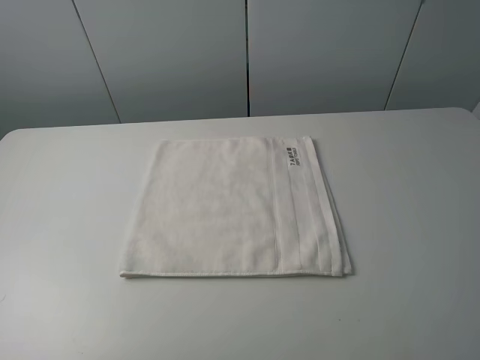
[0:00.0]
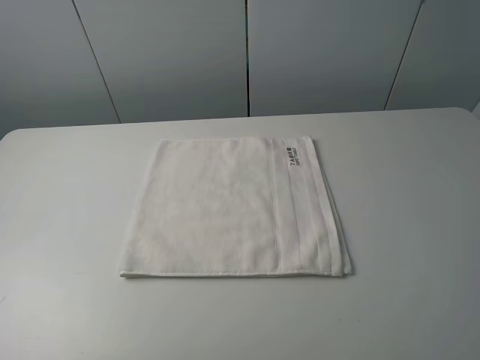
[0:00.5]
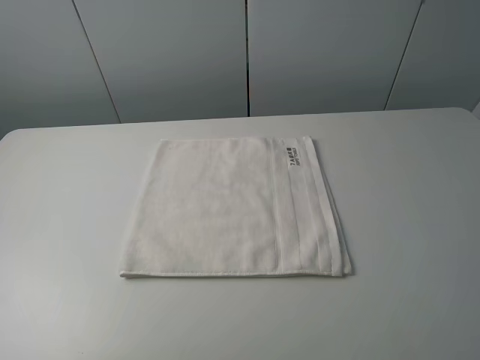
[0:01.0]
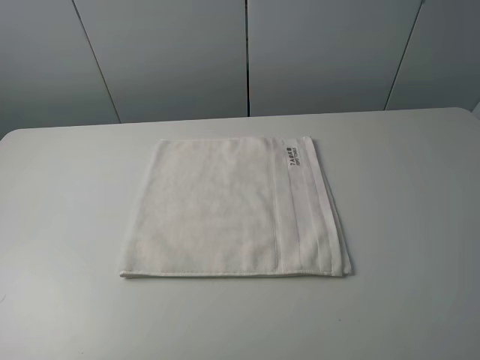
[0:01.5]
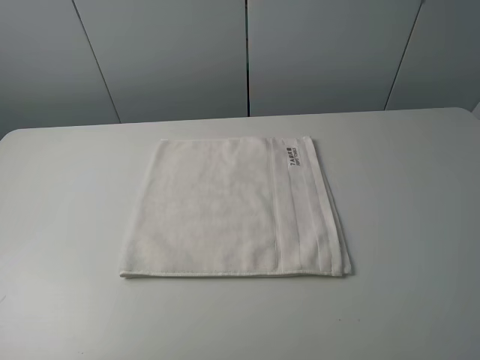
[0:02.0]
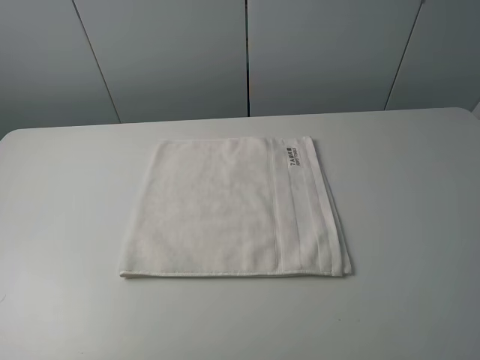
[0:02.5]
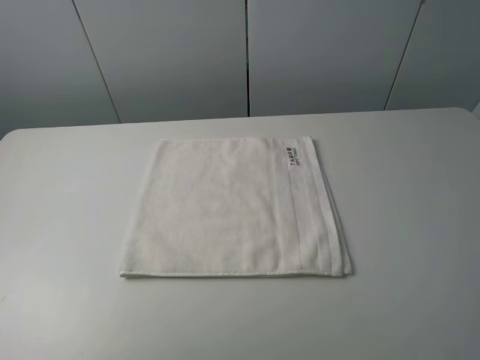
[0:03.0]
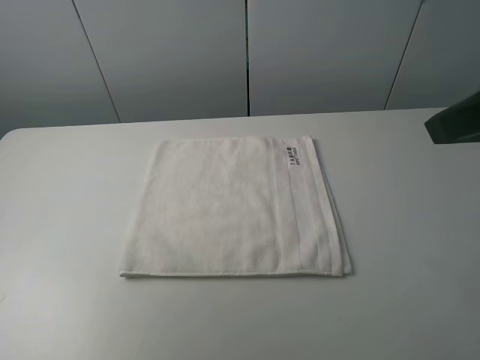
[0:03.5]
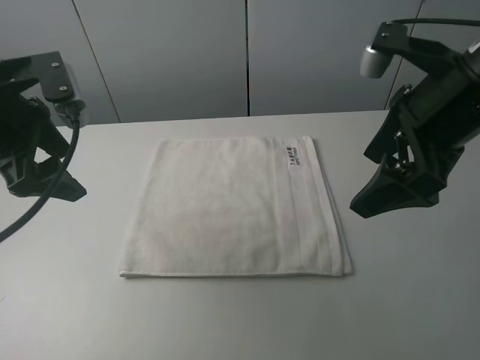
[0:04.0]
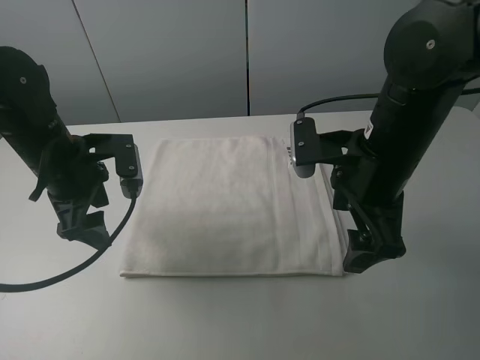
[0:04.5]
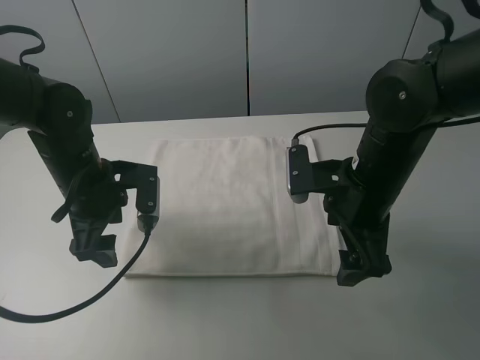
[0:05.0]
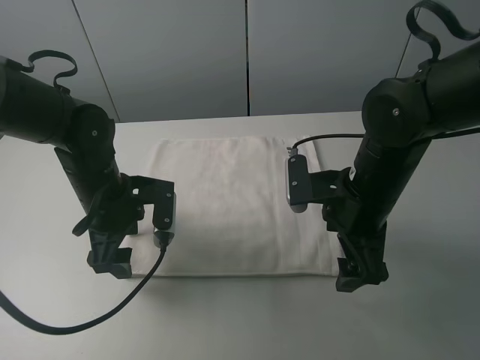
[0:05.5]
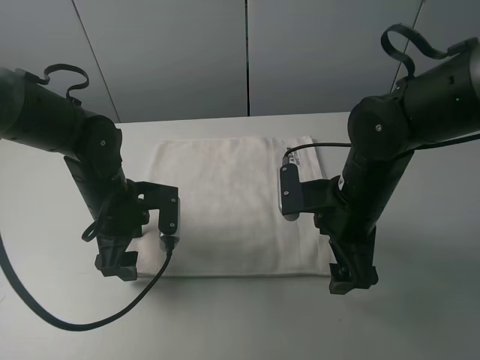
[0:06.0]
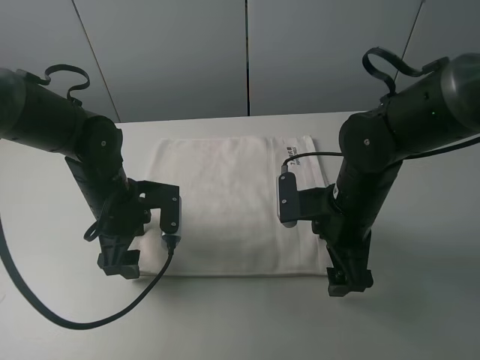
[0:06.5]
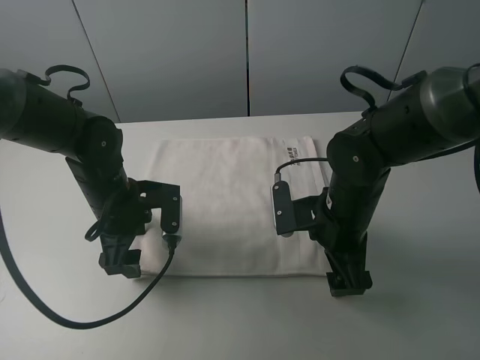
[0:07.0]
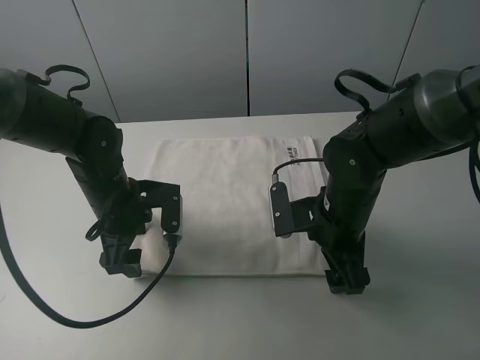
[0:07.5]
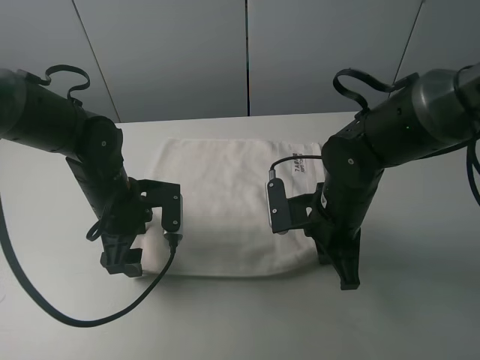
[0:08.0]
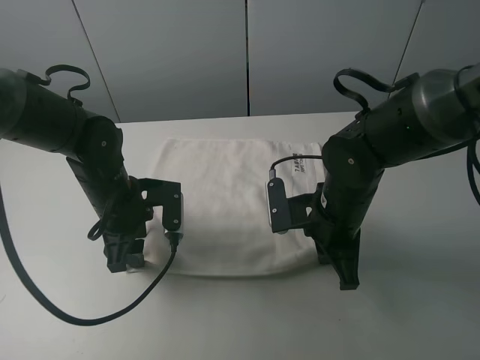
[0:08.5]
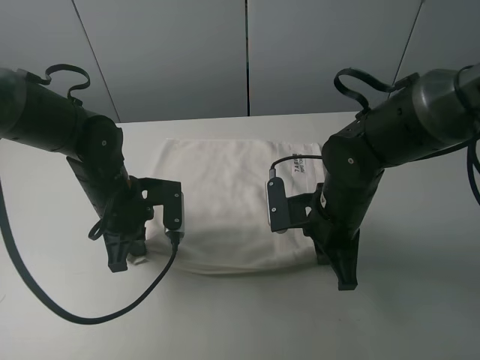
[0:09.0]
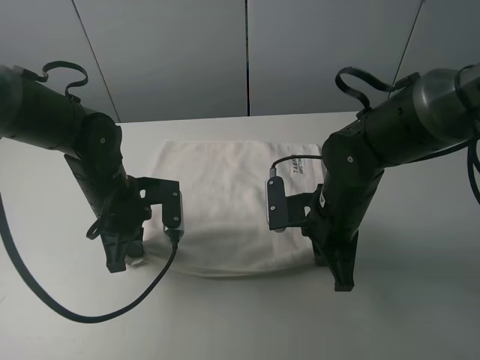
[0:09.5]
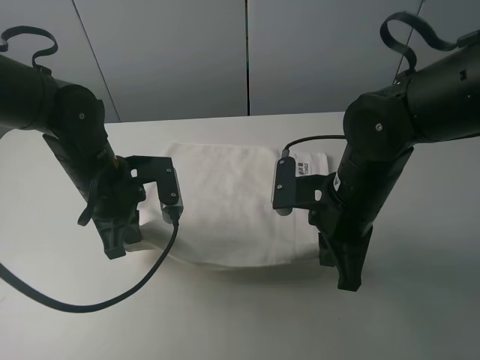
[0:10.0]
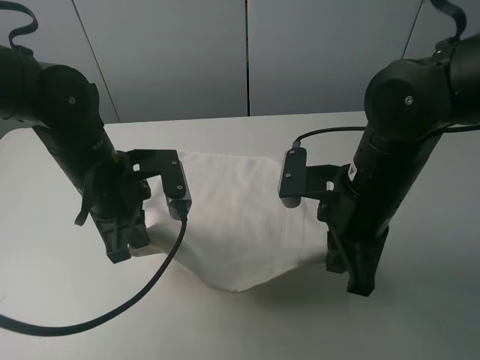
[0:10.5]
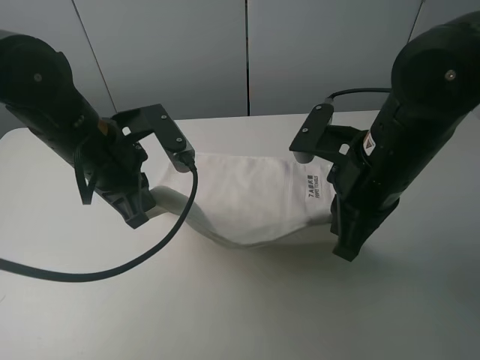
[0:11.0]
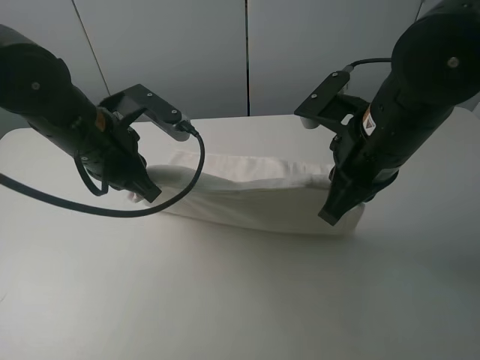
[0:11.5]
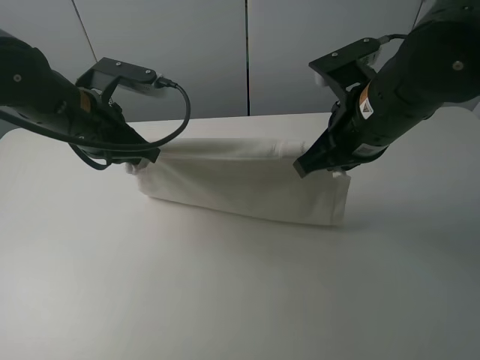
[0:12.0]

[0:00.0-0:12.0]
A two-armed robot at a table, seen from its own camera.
Task of the whole recording: fold the towels on the table.
Step, 0:00.0 to 0:08.0: Grasp the white towel with the right gripper.
Step, 0:08.5 to 0:09.0: Grasp the white towel with the left gripper.
0:00.0 to 0:02.0: Both grippers stay about where they are.
0:02.0 to 0:04.0: The left gripper heads forward and to the right, covering approximately 25 cm; the right gripper goes roughly 25 cm forward and to the left.
0:04.0 to 0:06.0: The left gripper is displaced downward and to the right by some 15 cm; the right gripper goes about 15 cm downward.
0:06.0 to 0:08.0: The right gripper closes up.
0:08.0 to 0:10.0: The right gripper moves some 5 cm. The left gripper closes its fingers.
0:10.0 to 0:12.0: The two grippers go roughly 5 cm upward.

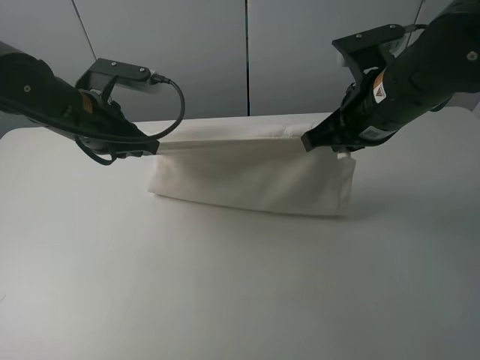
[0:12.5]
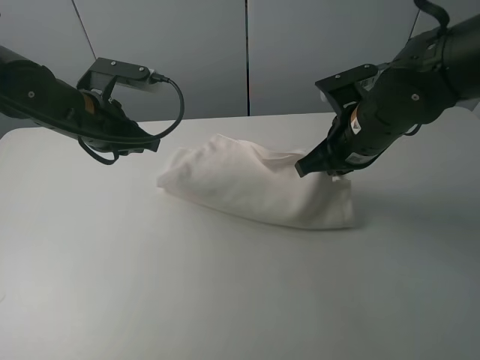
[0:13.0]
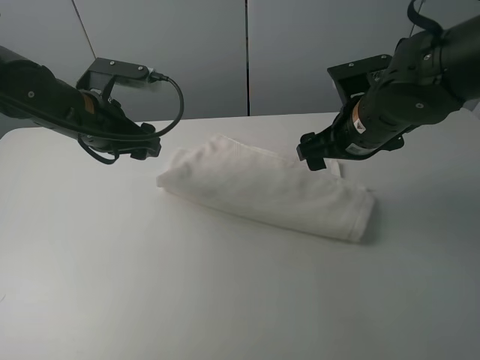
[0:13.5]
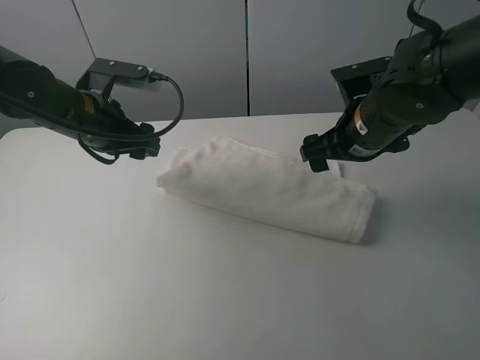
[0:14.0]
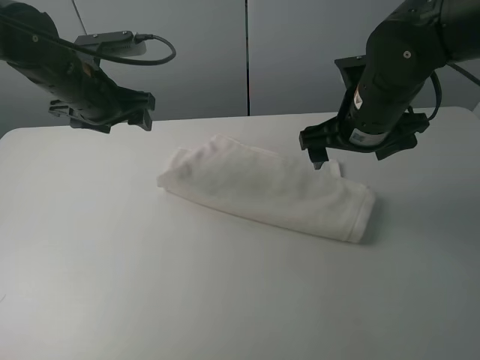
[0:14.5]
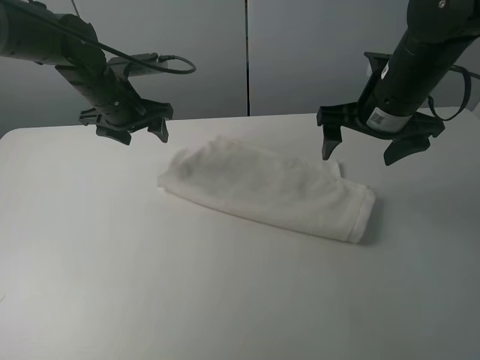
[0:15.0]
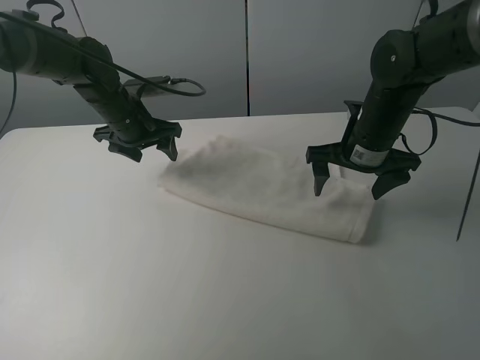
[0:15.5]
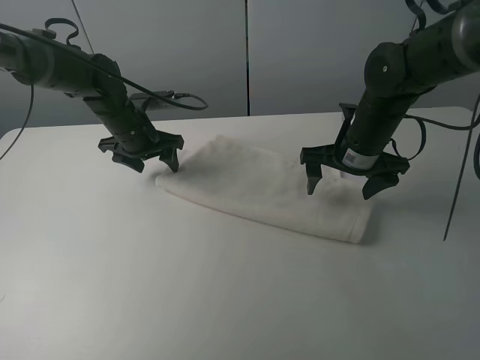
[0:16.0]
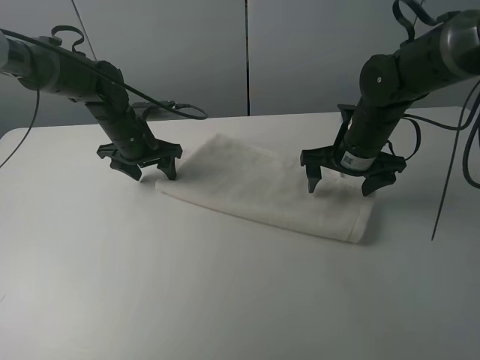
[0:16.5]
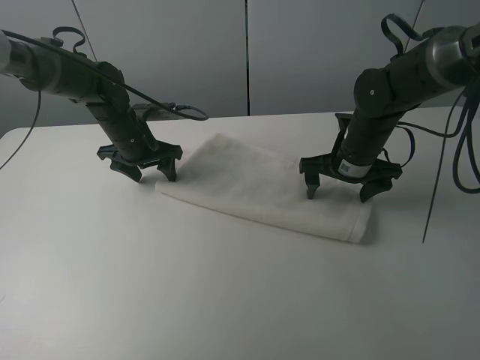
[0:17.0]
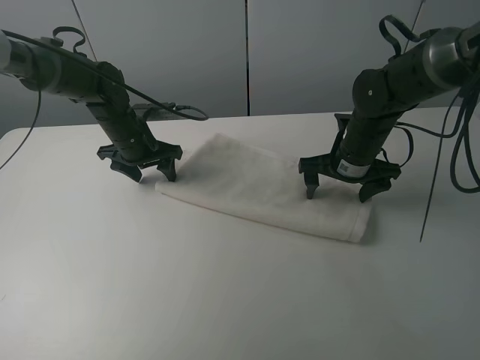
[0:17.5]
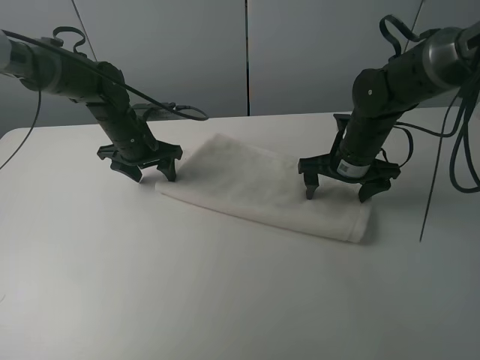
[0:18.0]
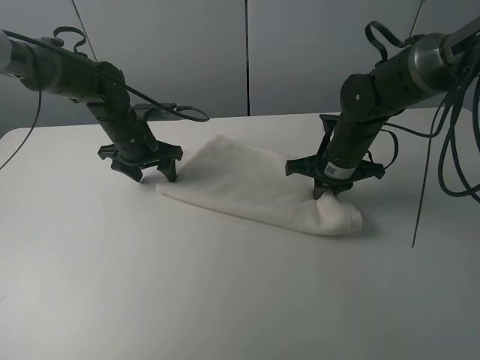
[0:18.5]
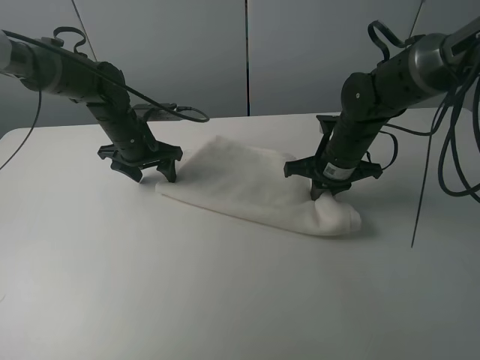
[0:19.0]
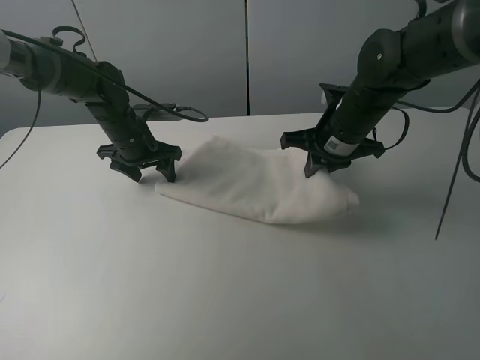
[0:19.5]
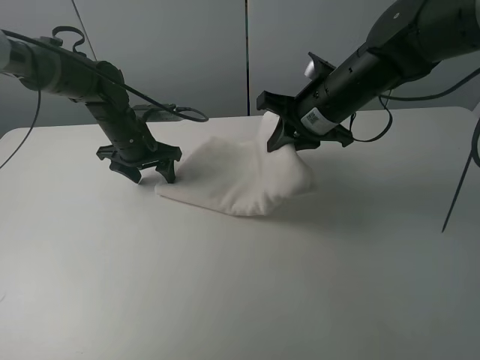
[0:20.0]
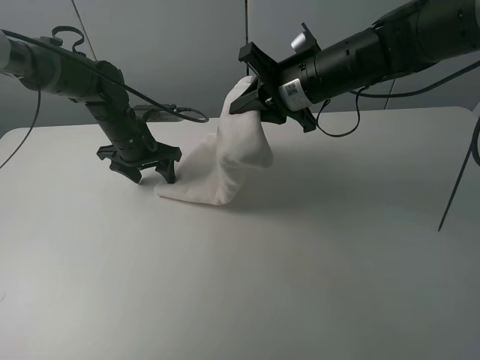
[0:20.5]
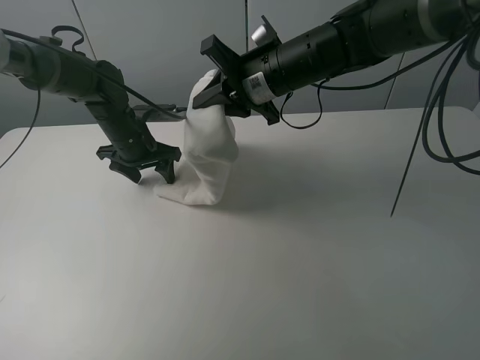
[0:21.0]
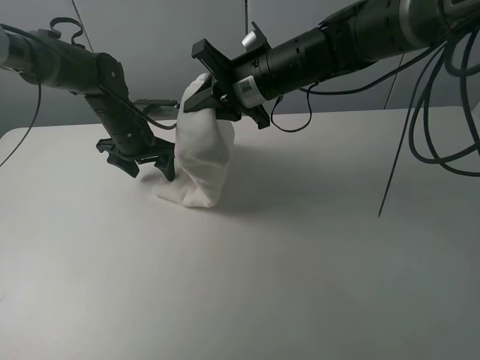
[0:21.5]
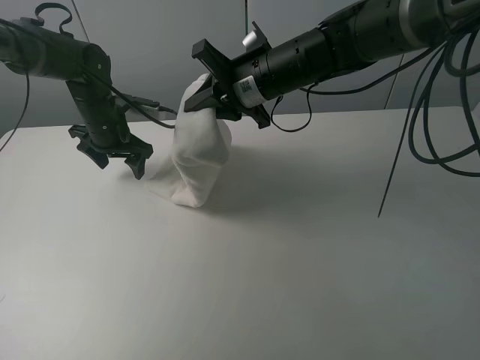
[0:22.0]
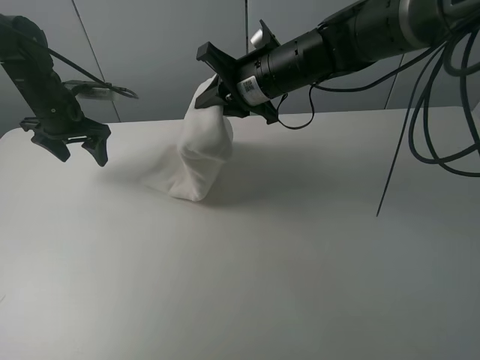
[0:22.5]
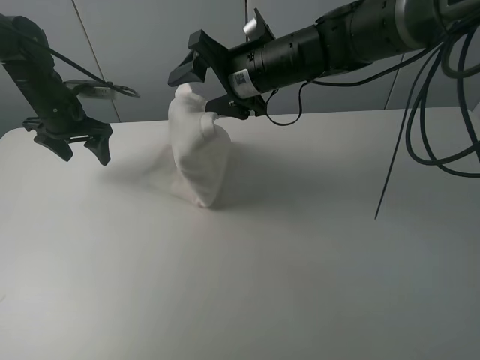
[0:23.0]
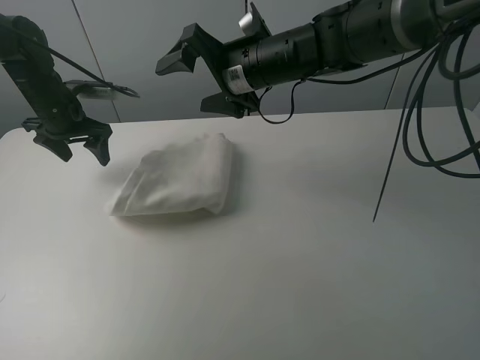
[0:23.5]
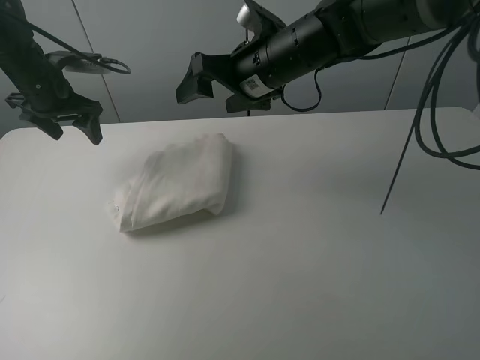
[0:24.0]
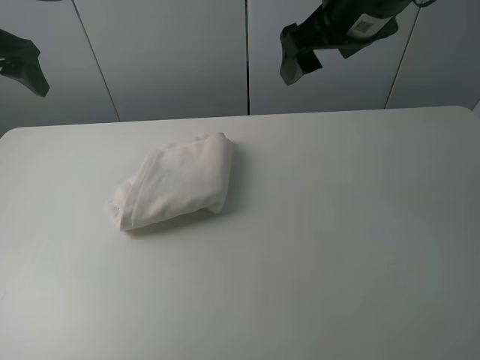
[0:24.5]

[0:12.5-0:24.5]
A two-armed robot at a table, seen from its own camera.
Task of the whole recording: fold the towels on the table.
Step, 0:14.0 to 0:16.5: Press on the white towel with the left gripper.
Step, 0:17.0 to 0:24.0: Fold the white towel from right to left with right gripper.
0:12.5 to 0:14.5: The right gripper opens. The left gripper is displaced forward by approximately 5 cm, and opens its fingers.
0:14.5 to 0:16.5: Both grippers move downward, some 10 cm.
0:16.5 to 0:18.5: The right gripper closes its fingers.
0:18.5 to 0:20.5: The right gripper moves upward and to the left, approximately 15 cm.
0:20.5 to 0:22.5: The right gripper travels to the left by about 5 cm; the left gripper is displaced to the left and upward by about 10 cm.
0:22.5 to 0:24.5: The left gripper is displaced upward and backward by some 20 cm. The right gripper moves upward, to the right and backward, some 15 cm, and opens.

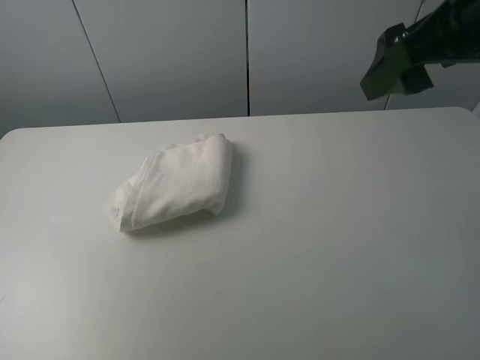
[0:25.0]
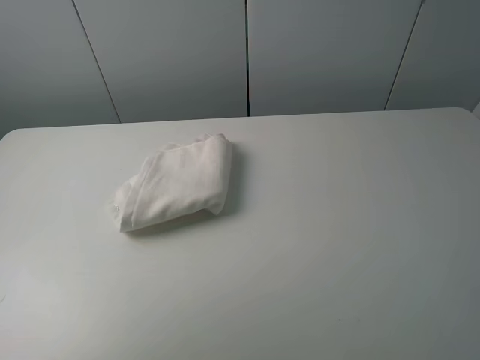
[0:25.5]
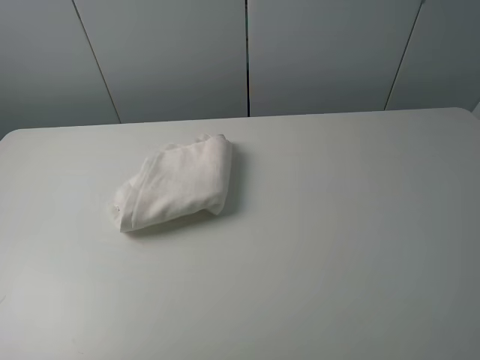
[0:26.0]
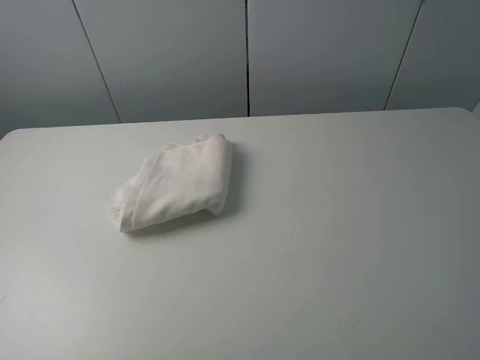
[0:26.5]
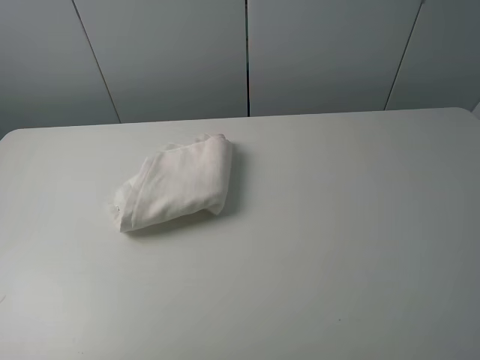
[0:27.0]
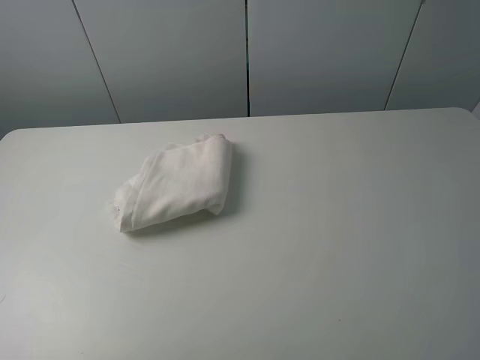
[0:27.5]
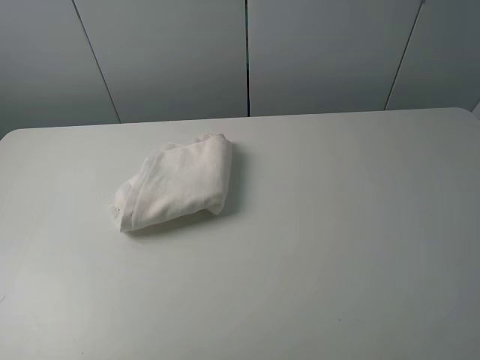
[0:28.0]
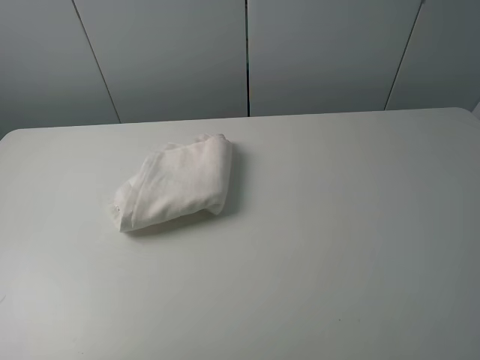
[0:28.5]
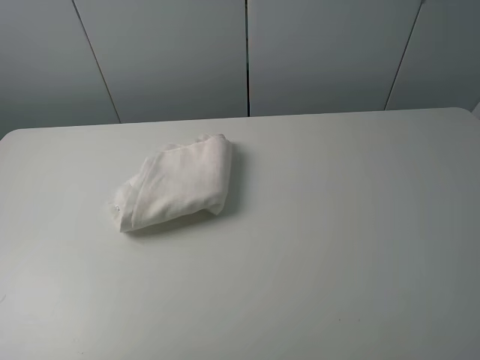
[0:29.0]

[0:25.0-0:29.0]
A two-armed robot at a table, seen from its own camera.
Task of the whole recording: fold the towels on the table.
0:25.0 to 0:27.0: The left gripper moves backward, roughly 20 cm; the right gripper travels backward and to the right by about 25 cm.
